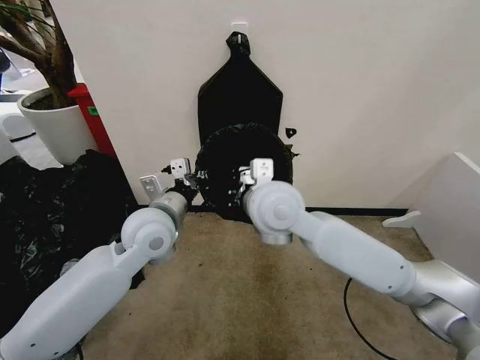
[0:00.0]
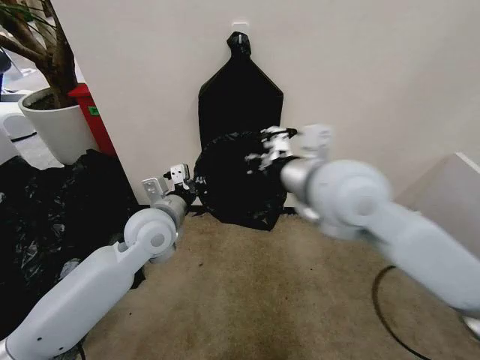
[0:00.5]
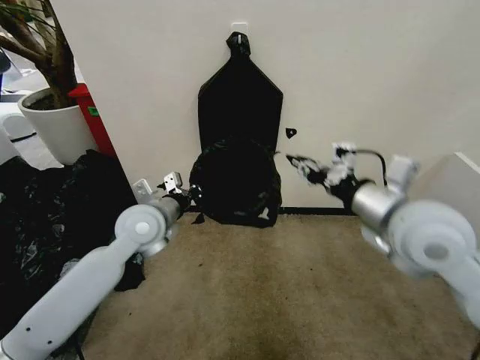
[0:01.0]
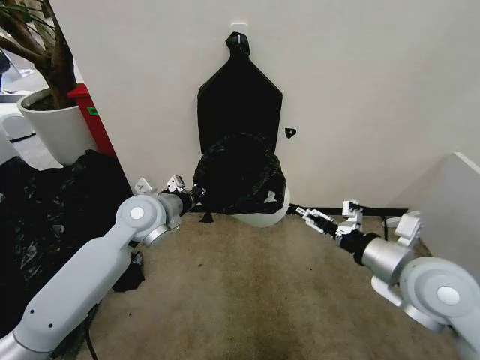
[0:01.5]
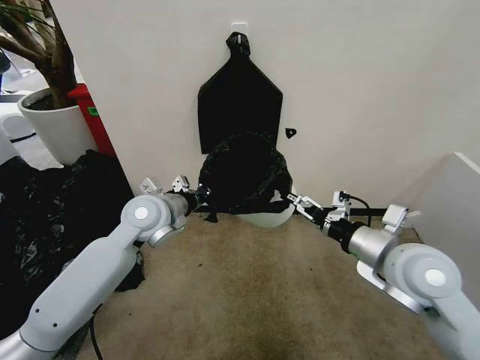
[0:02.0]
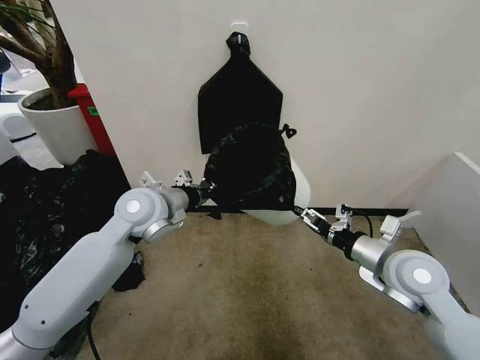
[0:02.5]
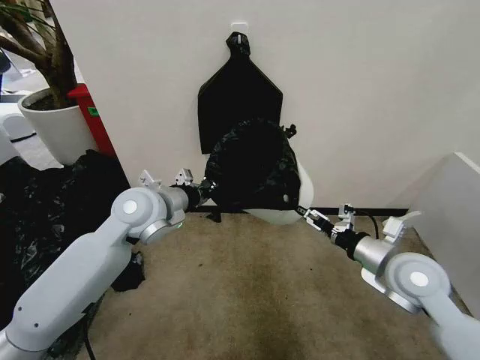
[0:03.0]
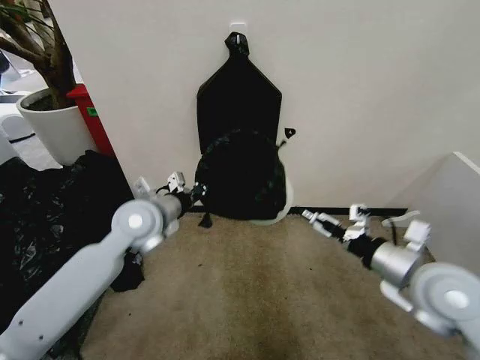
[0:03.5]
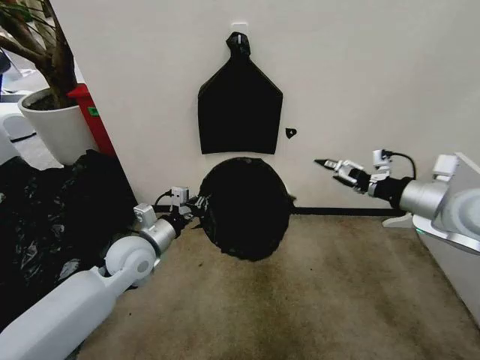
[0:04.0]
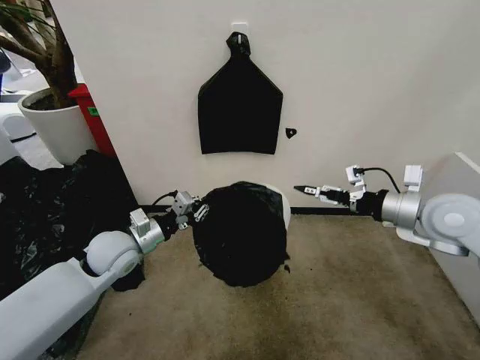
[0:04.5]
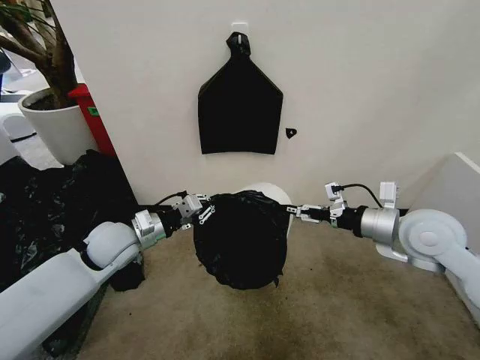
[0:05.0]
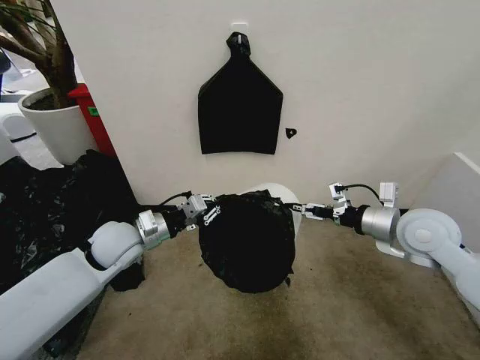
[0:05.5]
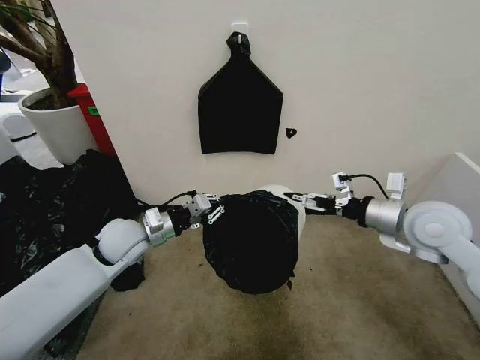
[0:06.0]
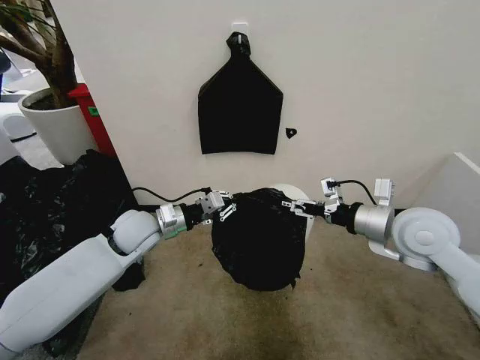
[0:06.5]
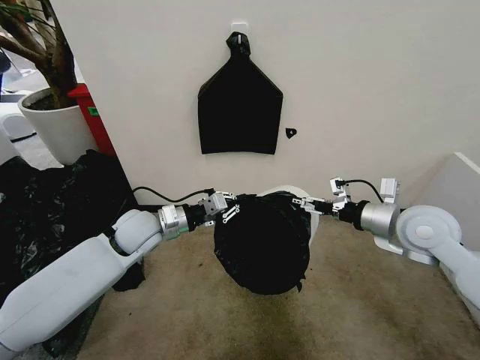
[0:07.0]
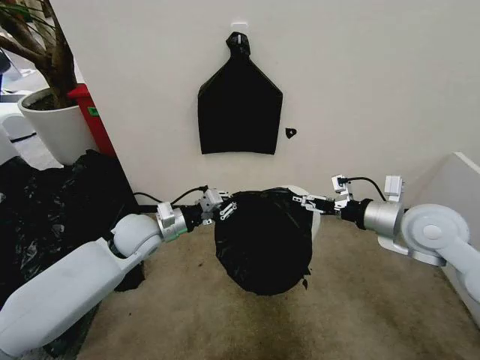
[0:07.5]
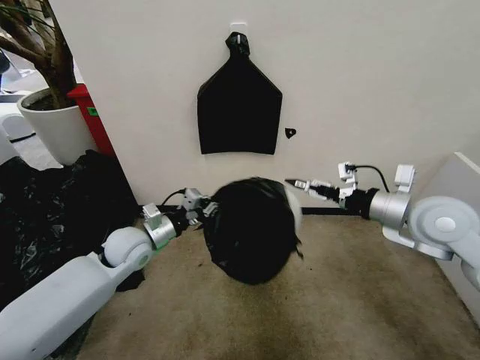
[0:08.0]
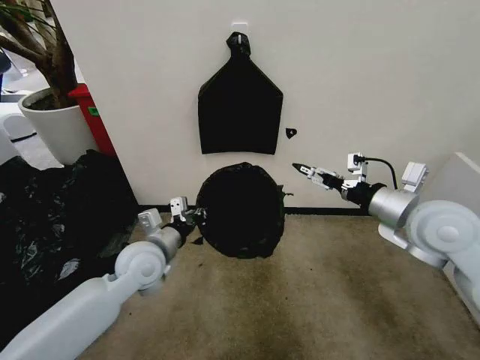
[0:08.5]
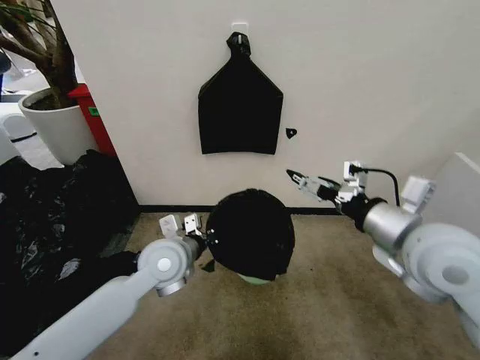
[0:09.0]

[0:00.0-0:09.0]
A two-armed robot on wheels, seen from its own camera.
Task of the whole recording: Place the garbage bag over the trash bin.
0:00.0 to 0:02.0: The right gripper shifts roughly 20 cm to the right, and opens.
0:02.0 to 0:04.5: The right gripper is displaced to the right and forward by roughly 10 cm, and reaches about 5 cm upward, then returns. Meanwhile the left gripper goes some 10 cm to the left and downward.
0:04.5 to 0:07.0: The left gripper changes place by roughly 5 cm.
0:07.0 to 0:09.0: The left gripper shifts about 10 cm to the right and backward, while the right gripper travels backward, to the left and upward by approximately 10 cm.

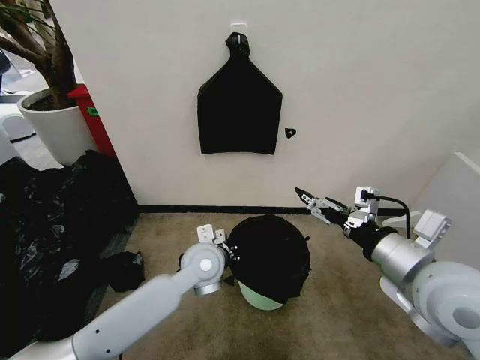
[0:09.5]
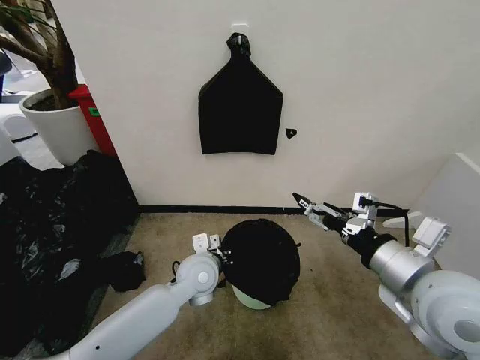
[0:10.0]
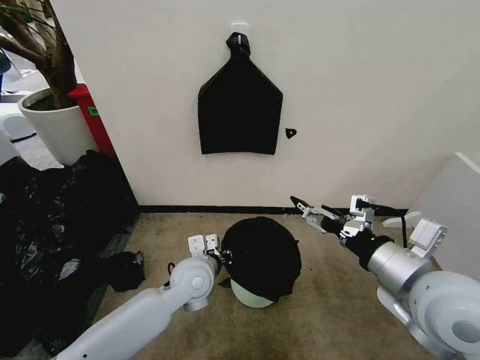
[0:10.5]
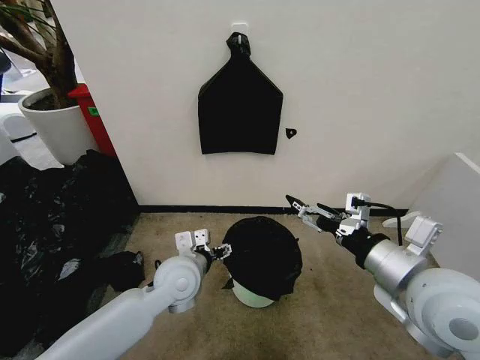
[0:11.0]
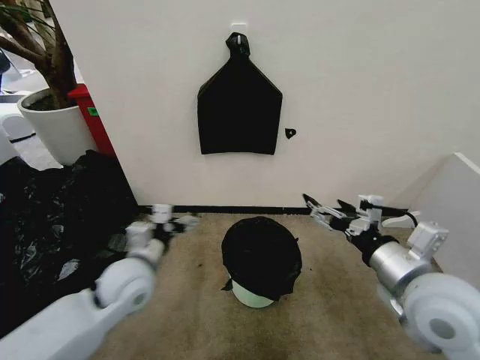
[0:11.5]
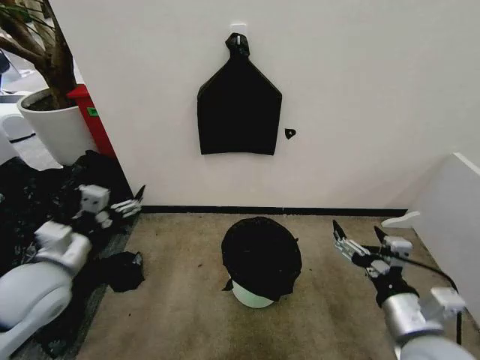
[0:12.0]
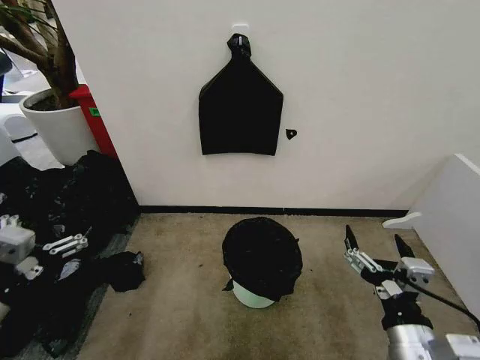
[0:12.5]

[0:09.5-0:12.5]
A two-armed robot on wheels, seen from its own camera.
Task of the whole recording: Place the garbage bag over the trash bin.
0:09.5 to 0:11.0: The left gripper shifts some 5 cm to the left, and opens its fingers.
0:11.0 to 0:12.5: The right gripper is displaced downward and backward by about 15 cm; the left gripper shifts about 35 cm to the left, backward and upward.
